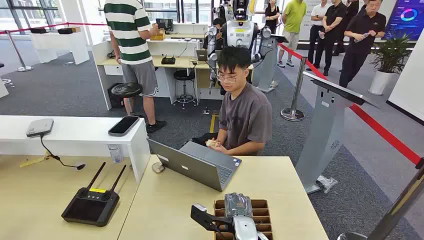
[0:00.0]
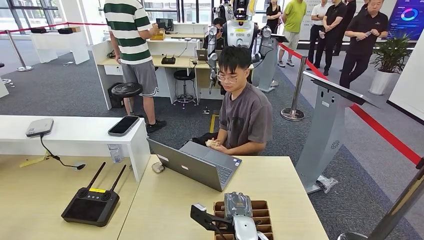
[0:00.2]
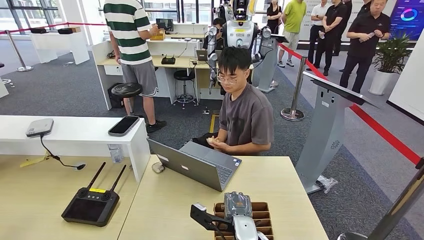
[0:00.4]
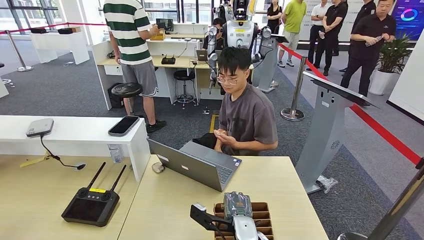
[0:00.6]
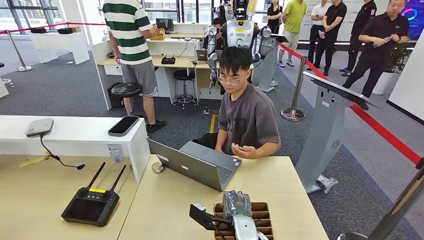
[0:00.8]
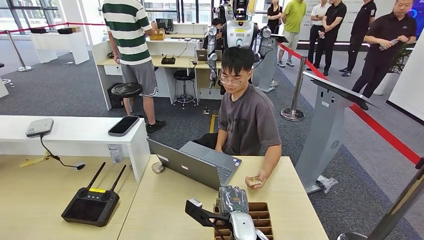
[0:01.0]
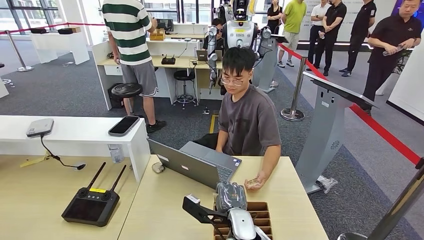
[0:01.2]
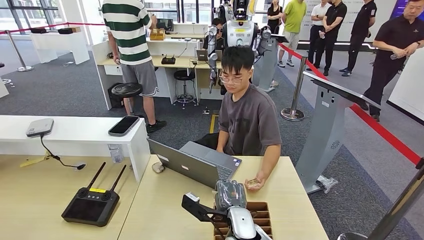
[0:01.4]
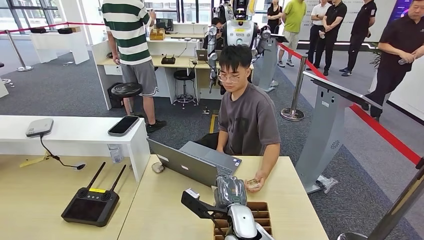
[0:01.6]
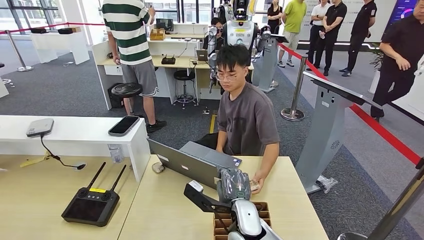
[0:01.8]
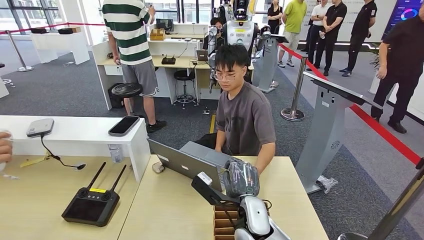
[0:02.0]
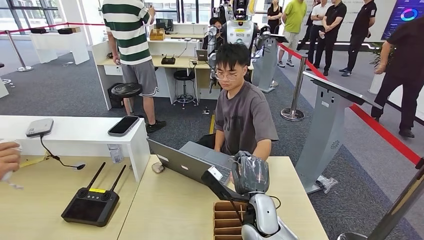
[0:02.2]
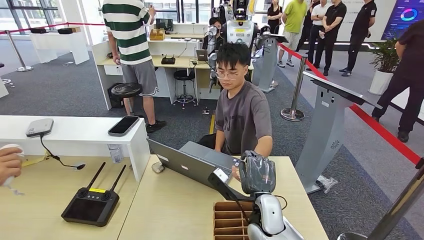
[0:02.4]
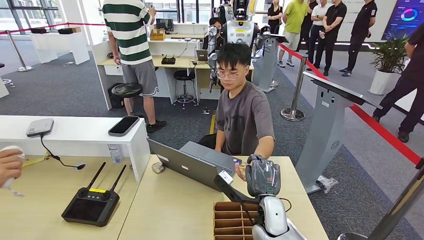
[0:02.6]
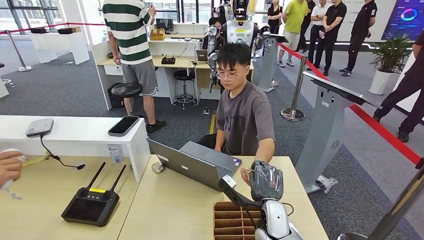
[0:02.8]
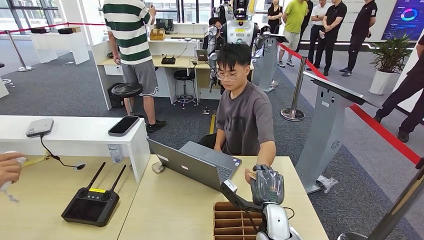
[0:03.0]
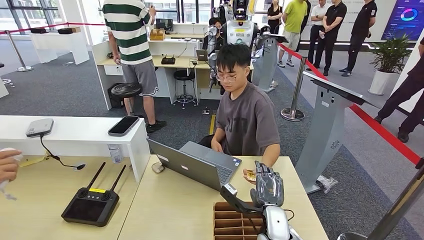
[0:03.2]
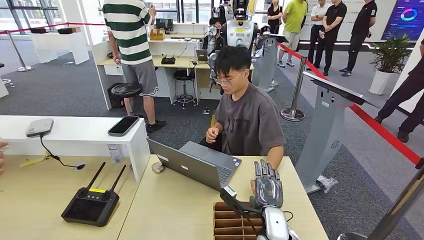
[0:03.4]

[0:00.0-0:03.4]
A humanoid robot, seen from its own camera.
Step, 0:00.0 to 0:01.2: Pick up the key card from the card box.
Step, 0:02.2 to 0:03.2: Hand the key card to the target.
0:01.6 to 0:03.4: The right hand shifts roughly 10 cm to the right.
